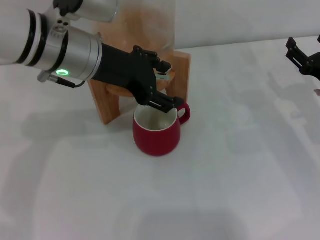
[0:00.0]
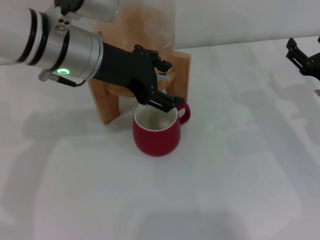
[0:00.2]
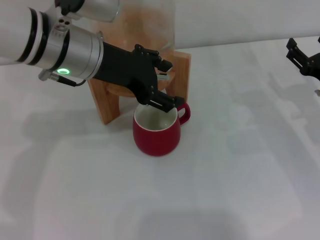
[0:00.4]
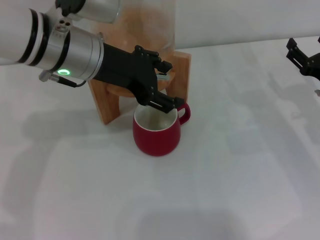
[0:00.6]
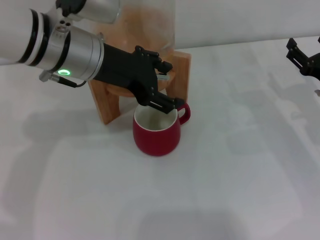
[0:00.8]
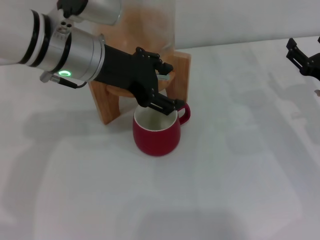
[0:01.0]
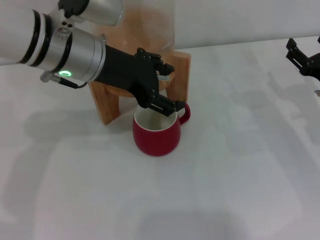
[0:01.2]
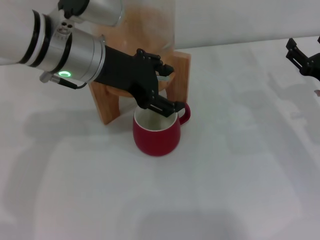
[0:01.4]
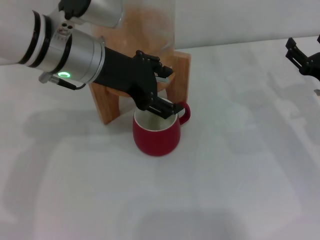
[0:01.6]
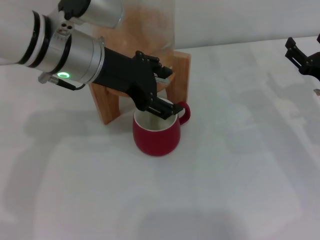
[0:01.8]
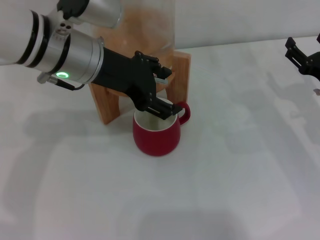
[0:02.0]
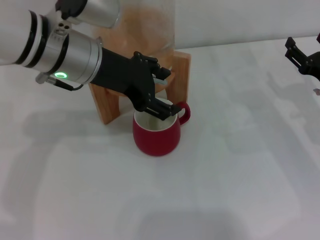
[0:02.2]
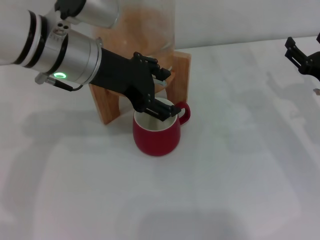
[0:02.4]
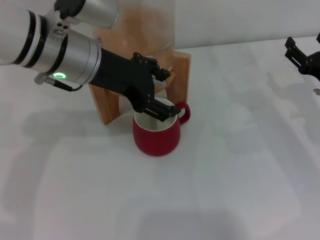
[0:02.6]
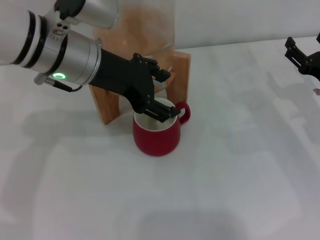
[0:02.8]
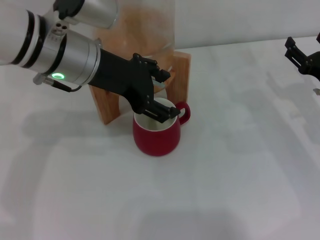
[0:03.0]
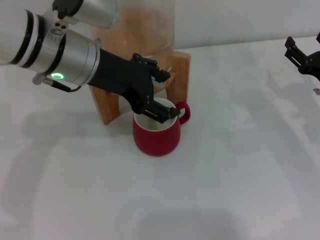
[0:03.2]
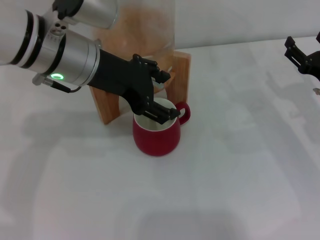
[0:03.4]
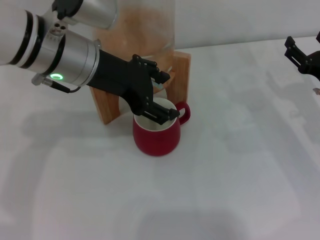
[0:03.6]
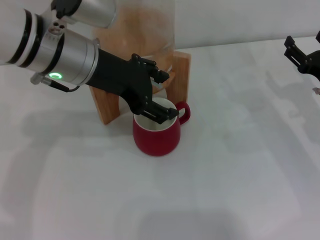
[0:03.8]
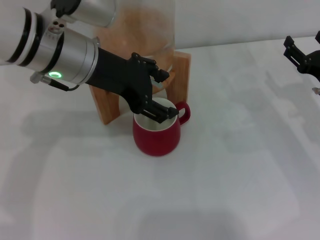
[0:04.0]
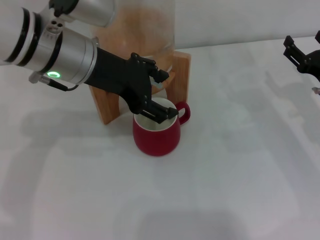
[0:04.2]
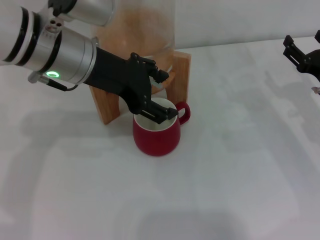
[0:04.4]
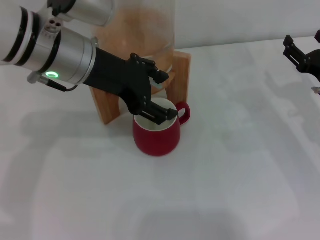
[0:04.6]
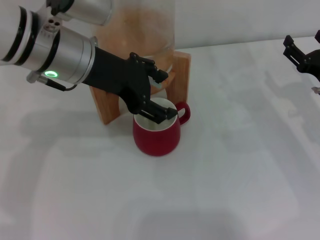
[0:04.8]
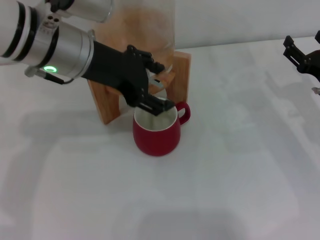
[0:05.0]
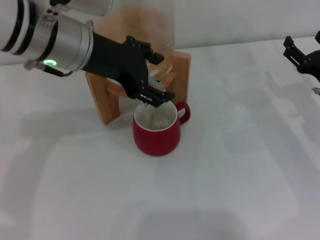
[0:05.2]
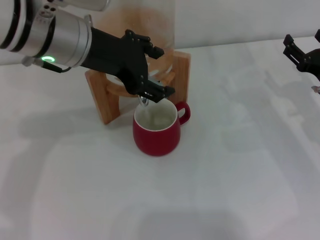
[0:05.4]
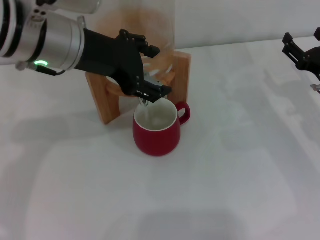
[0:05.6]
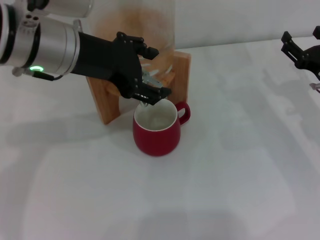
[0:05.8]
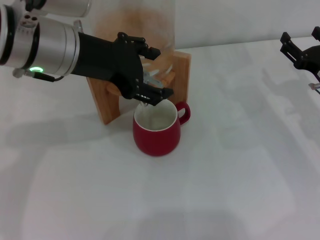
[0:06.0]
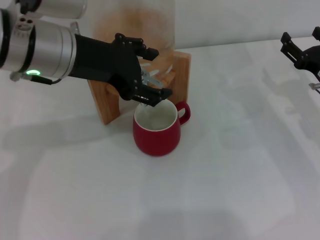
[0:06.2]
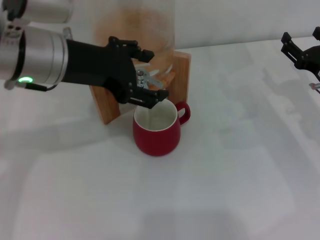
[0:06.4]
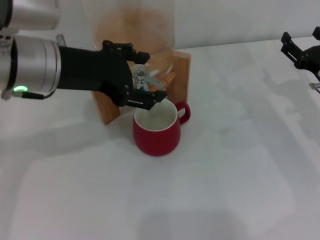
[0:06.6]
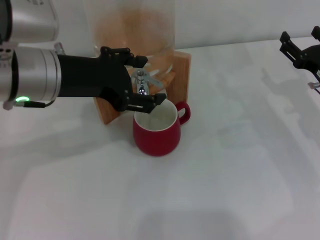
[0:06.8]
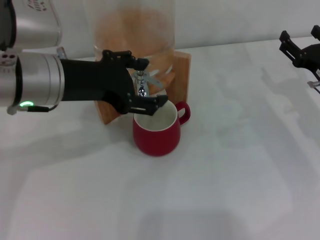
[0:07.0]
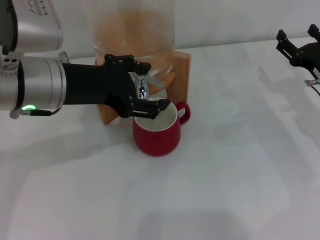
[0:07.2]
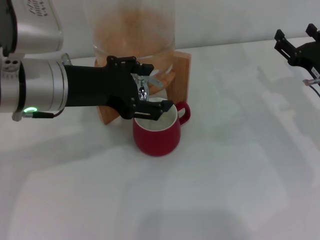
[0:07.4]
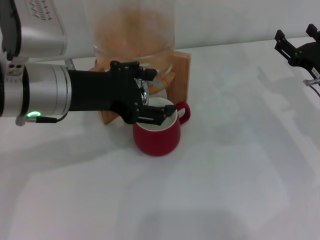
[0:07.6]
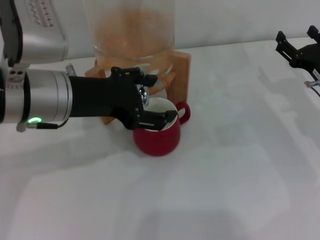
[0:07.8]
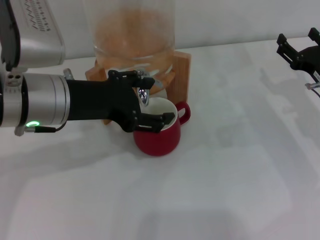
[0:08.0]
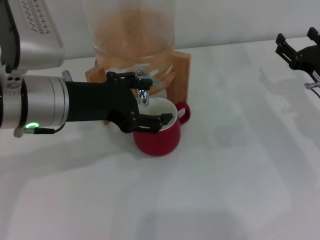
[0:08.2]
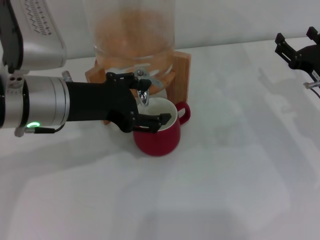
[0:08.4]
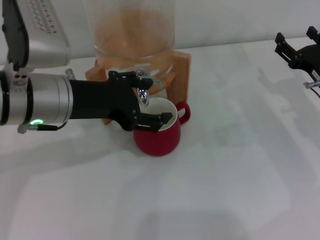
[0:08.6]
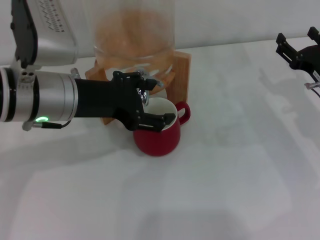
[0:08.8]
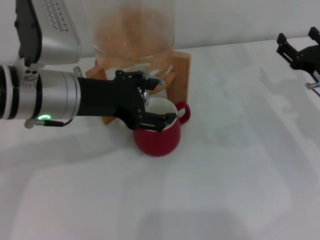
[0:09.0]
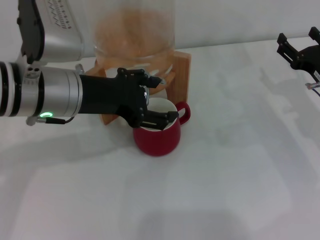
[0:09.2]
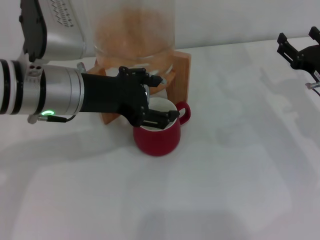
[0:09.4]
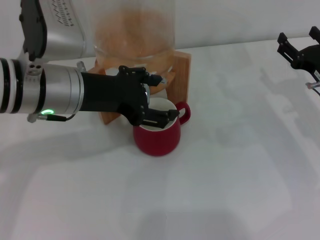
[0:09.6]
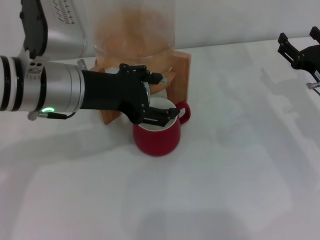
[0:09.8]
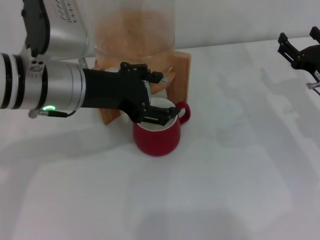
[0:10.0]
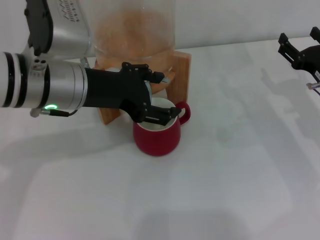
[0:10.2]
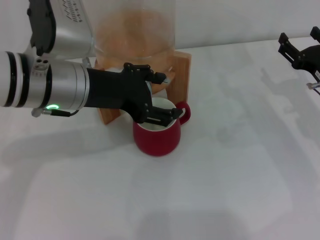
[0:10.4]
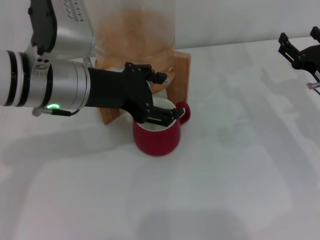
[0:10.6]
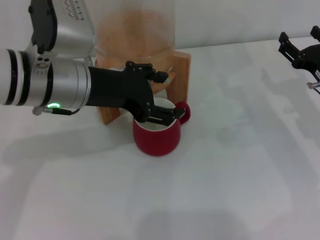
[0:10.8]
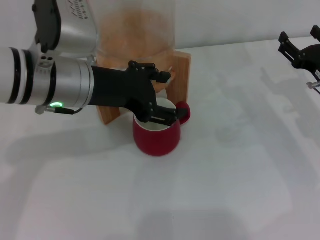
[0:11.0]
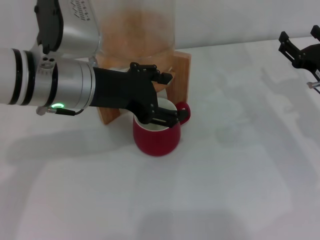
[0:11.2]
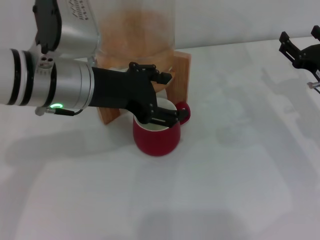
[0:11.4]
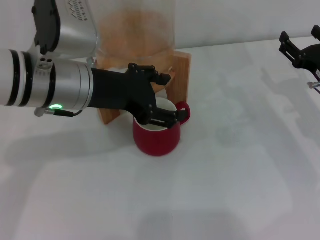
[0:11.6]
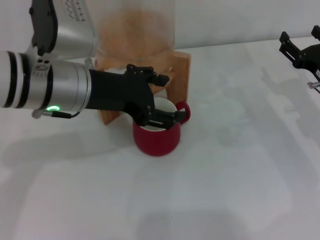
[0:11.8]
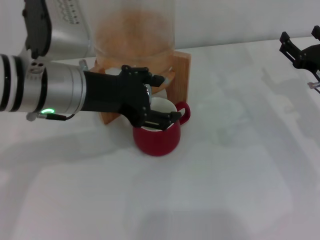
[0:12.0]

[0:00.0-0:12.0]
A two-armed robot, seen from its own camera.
Task of the whole recording: the right gripper pick up the red cup and place it horizontally under the faucet, the left gripper turn on the faucet to fill the cup, and then turn off the faucet.
Step, 0:00.0 to 0:06.4: Open the dispenser valve and fill the cup with water with the left gripper.
0:00.0 to 0:04.4: The two grippers keep their place.
0:04.4 to 0:06.0: The grippers make only small movements.
0:06.0 to 0:07.6: The left gripper moves some 5 cm.
0:07.6 to 0:10.4: The grippers make only small movements.
0:10.4 to 0:12.0: Both grippers stay about where they are.

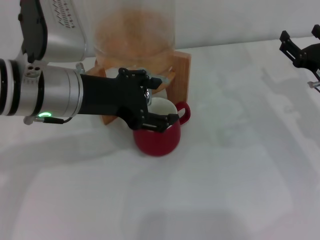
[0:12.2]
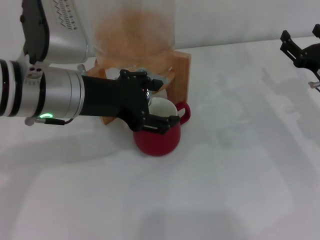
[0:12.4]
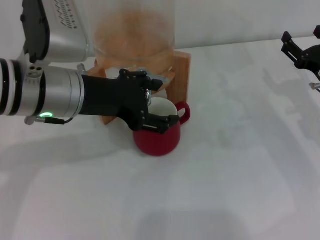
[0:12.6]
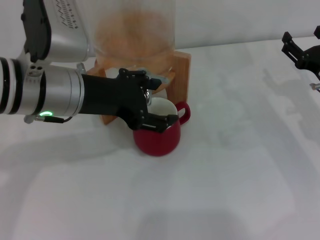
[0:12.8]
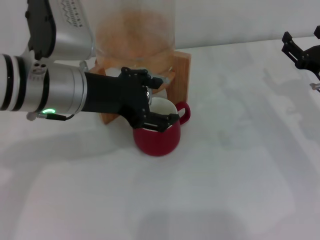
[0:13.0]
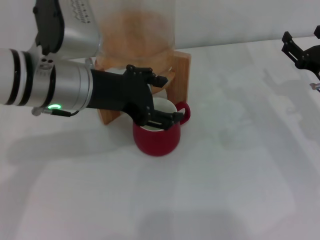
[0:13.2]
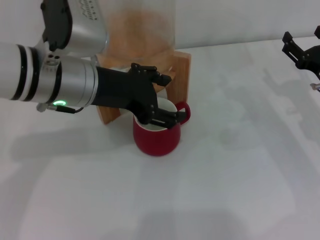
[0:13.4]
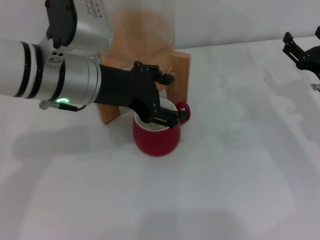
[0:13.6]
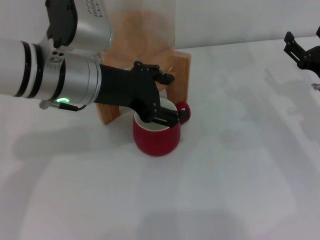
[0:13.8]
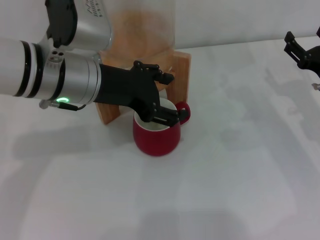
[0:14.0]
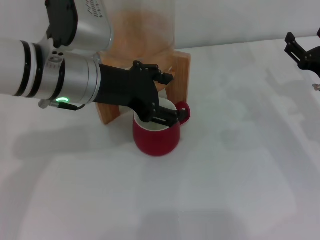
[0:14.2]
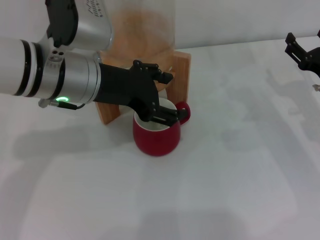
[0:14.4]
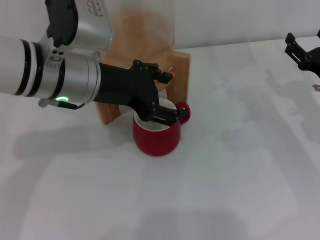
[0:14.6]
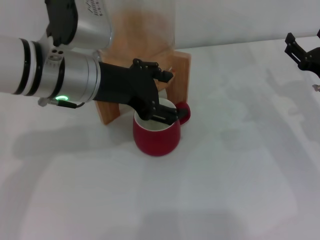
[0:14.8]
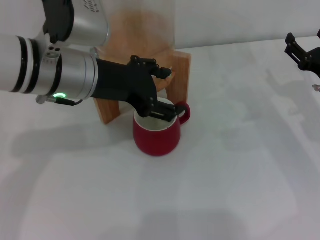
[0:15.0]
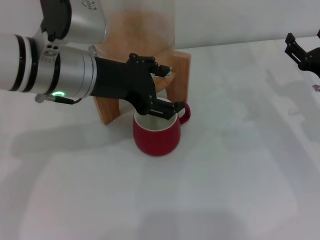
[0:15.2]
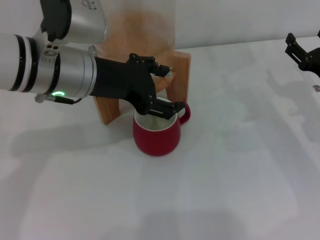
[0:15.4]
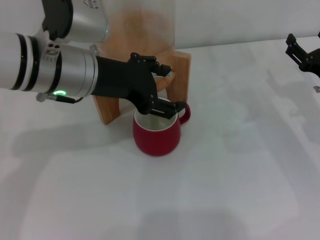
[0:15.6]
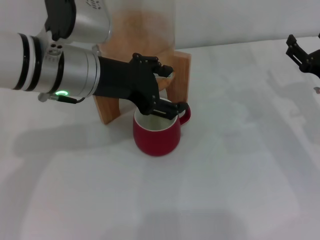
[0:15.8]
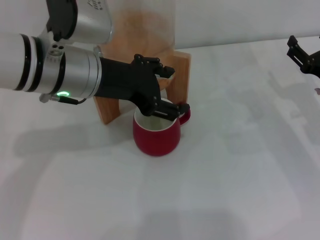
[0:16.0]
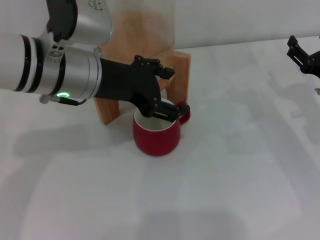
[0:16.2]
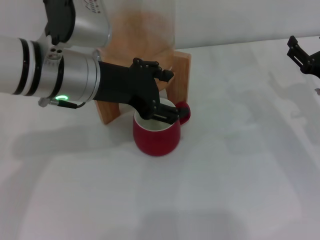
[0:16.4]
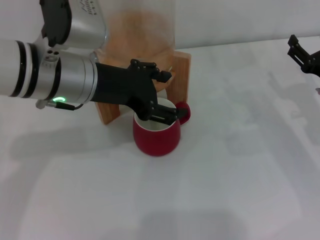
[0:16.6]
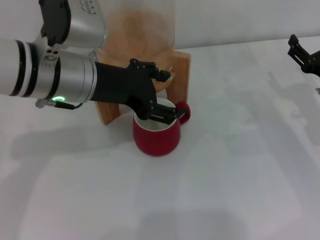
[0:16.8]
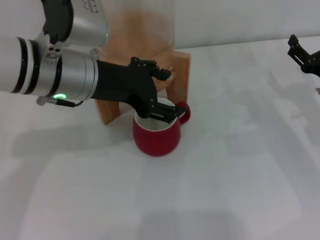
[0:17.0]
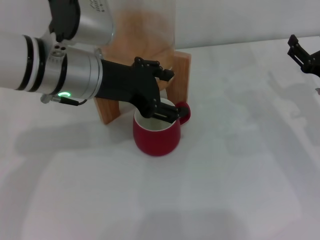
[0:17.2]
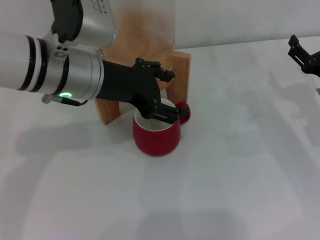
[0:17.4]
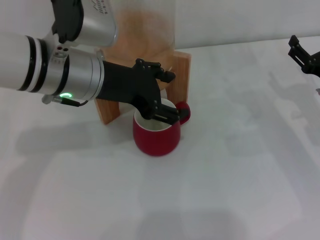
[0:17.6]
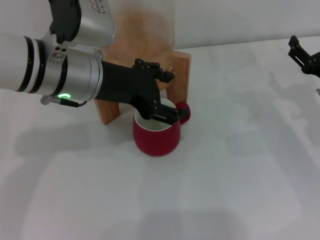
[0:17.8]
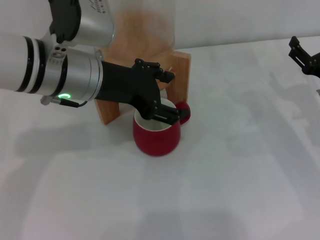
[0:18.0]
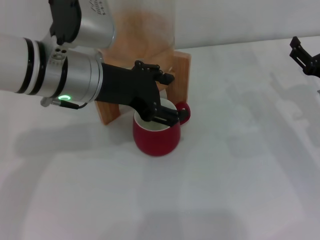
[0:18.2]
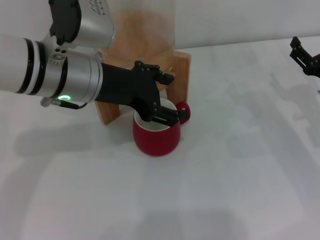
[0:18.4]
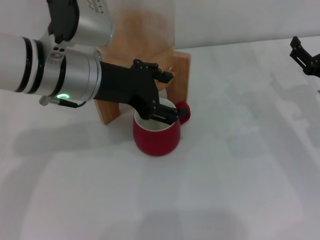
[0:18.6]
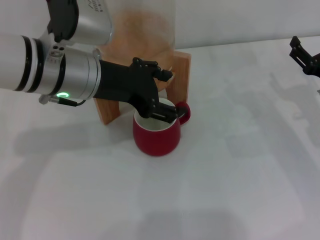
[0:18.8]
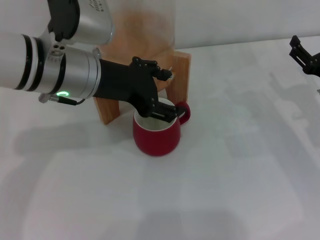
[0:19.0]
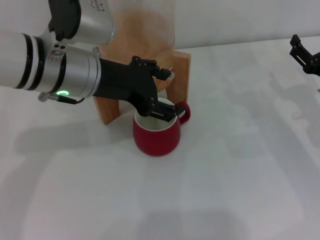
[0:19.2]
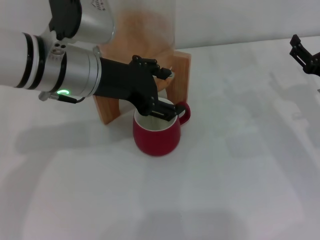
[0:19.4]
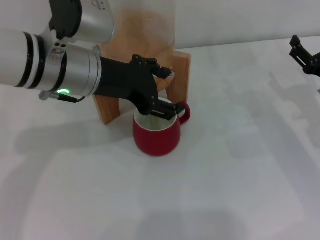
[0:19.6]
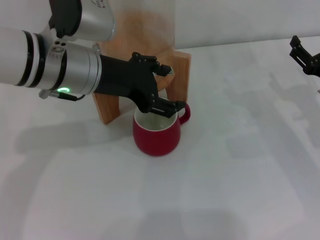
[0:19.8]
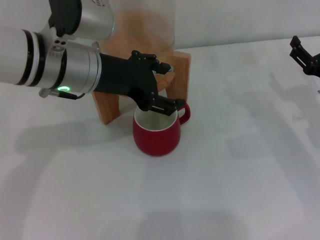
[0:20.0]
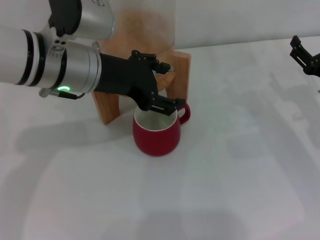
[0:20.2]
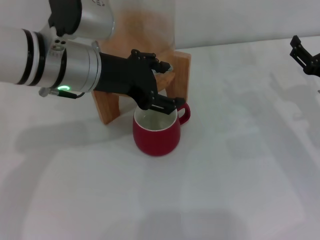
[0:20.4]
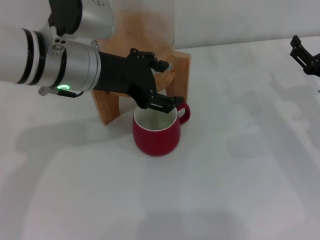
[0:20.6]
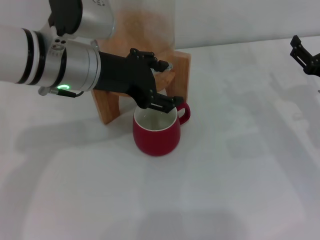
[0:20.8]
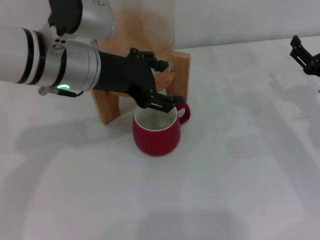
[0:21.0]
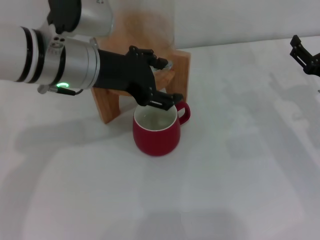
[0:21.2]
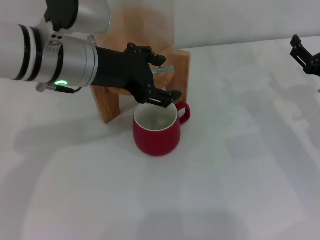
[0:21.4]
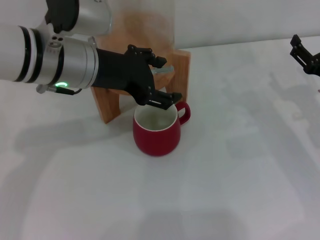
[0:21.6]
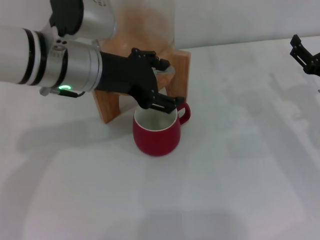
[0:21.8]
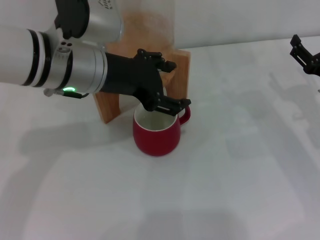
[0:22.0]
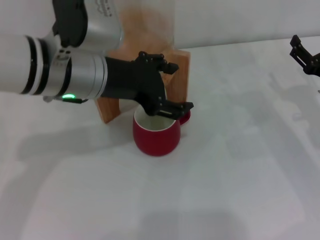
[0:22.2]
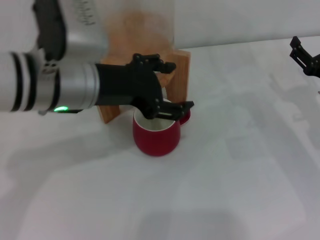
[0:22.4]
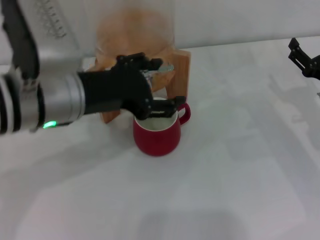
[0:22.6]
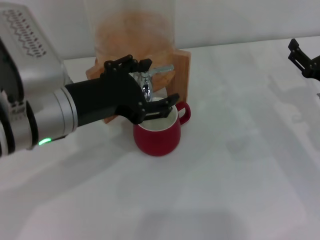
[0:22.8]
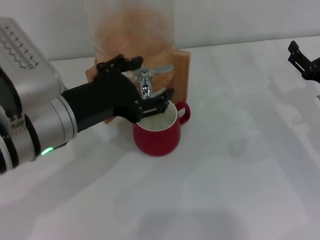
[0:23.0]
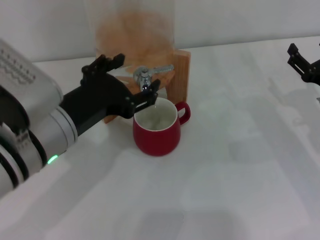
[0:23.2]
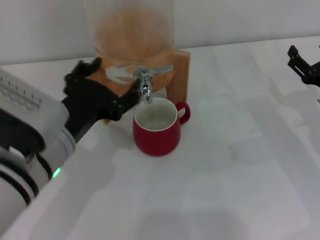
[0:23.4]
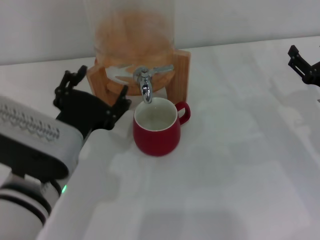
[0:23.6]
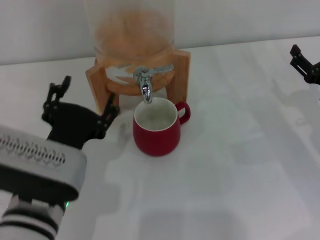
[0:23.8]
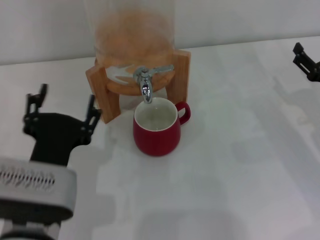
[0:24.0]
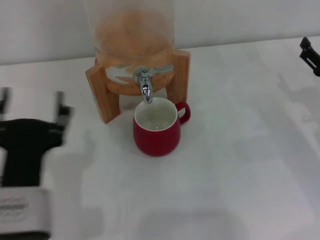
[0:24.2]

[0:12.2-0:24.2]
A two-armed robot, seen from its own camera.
Task of the whole recording: the right gripper pick up the red cup and place it horizontally under the faucet, the left gripper turn on the faucet to fill the cup, and then turn off the faucet.
Step, 0:12.2 to 0:22.6: Close the dispenser valve with the left gripper.
0:12.2 to 0:13.8: The grippers move only a little.
0:13.8 to 0:16.6: Both grippers stay put.
0:16.6 to 0:19.8: Both grippers stay put.
0:19.8 to 0:21.2: Neither gripper changes place.
0:21.2 to 0:22.6: The left gripper shifts about 5 cm backward.
0:22.6 to 0:24.2: The left gripper shifts roughly 15 cm backward and downward.
